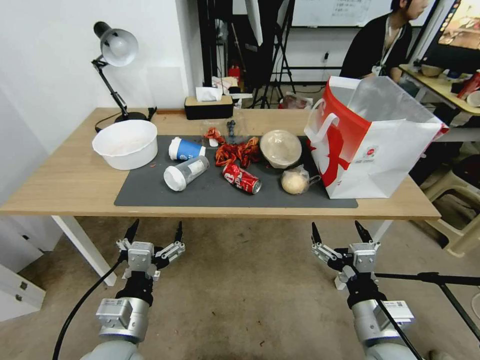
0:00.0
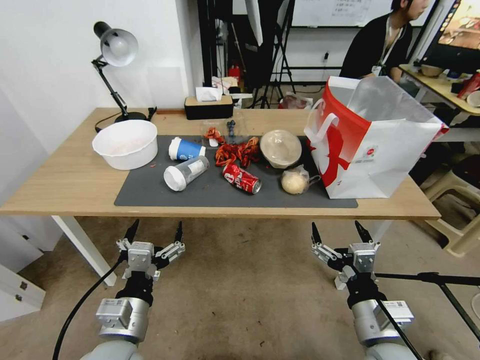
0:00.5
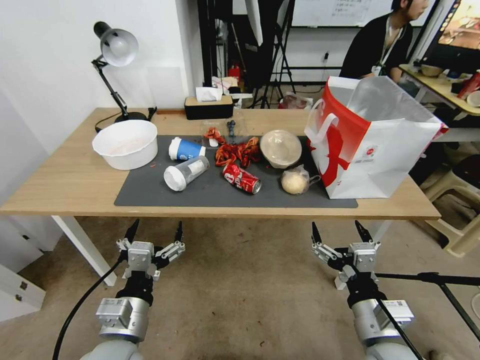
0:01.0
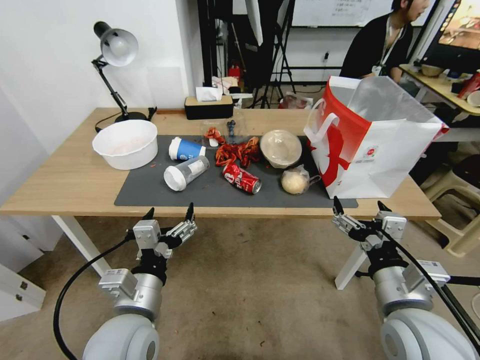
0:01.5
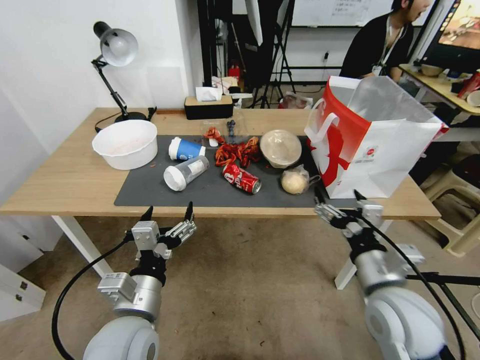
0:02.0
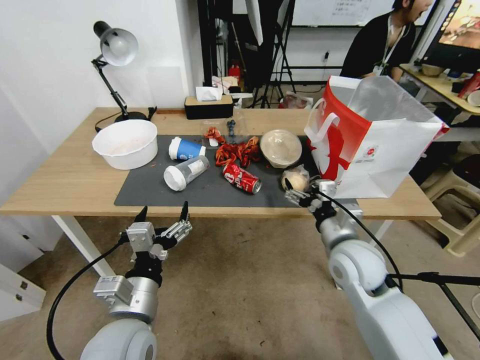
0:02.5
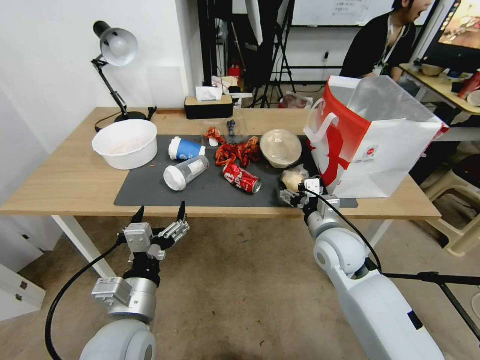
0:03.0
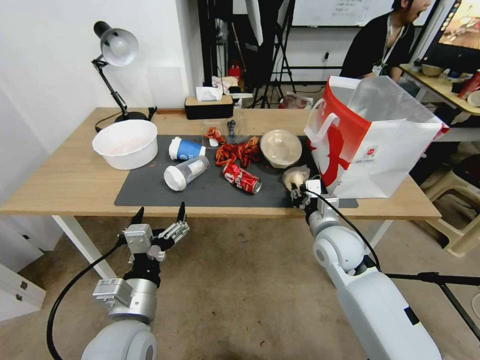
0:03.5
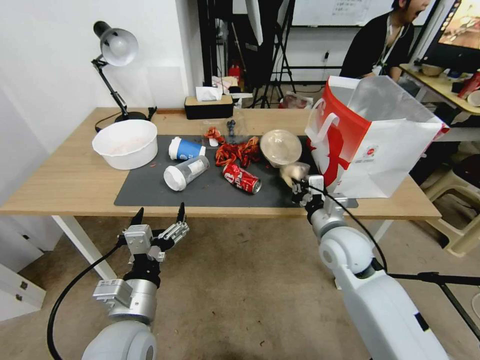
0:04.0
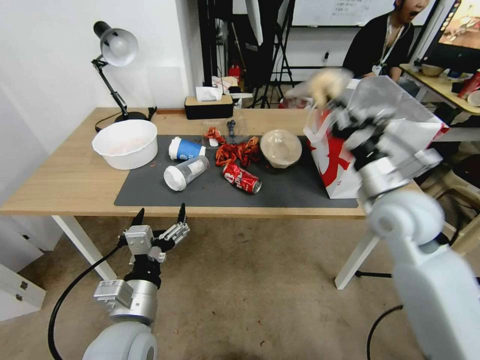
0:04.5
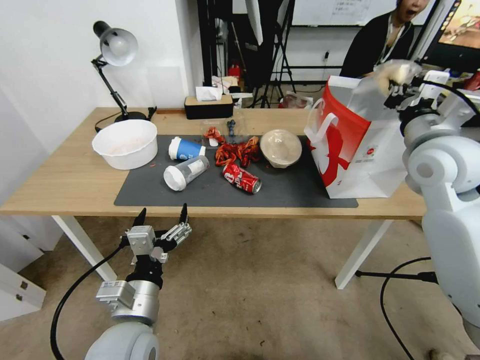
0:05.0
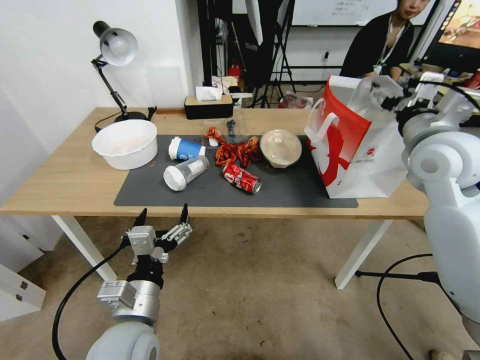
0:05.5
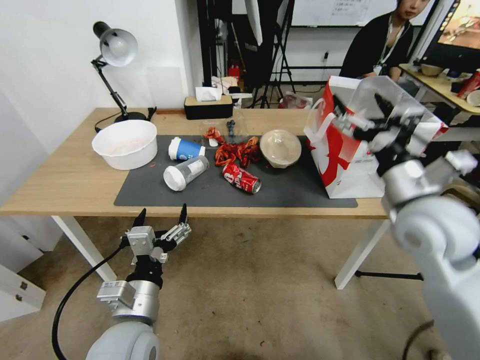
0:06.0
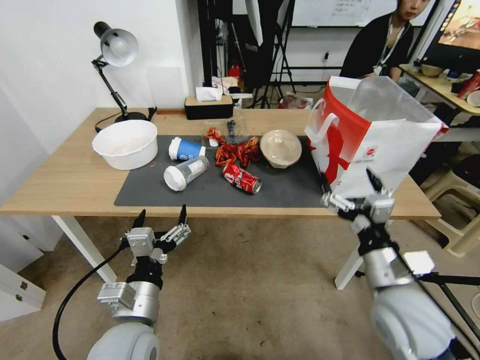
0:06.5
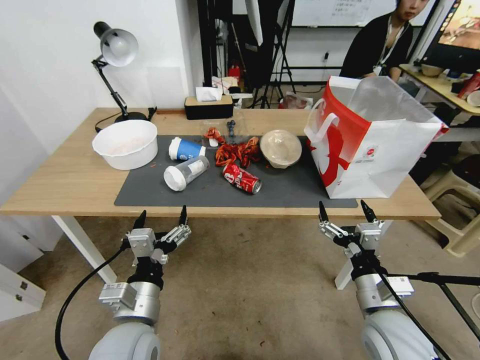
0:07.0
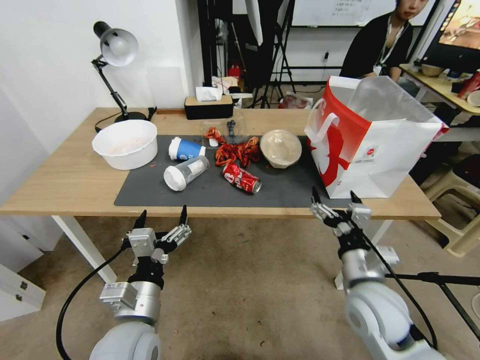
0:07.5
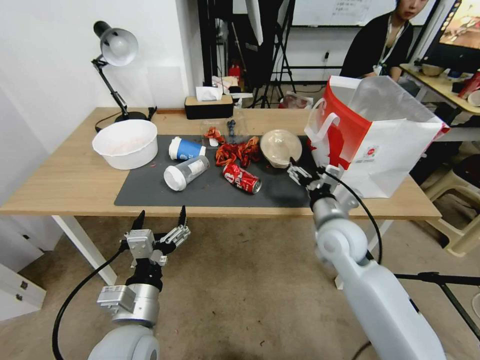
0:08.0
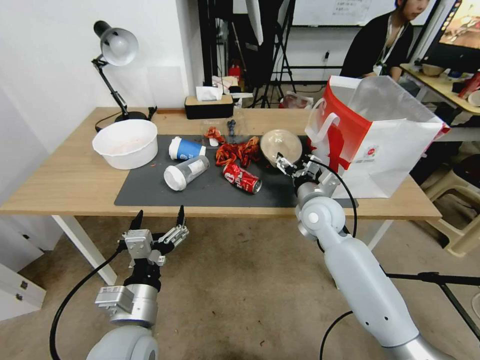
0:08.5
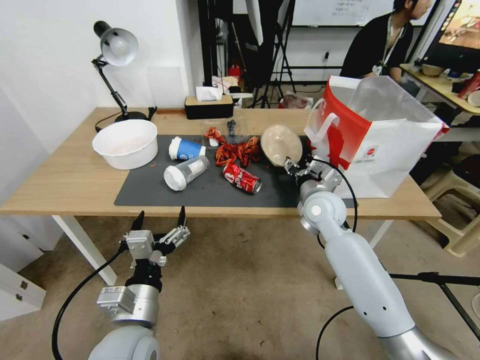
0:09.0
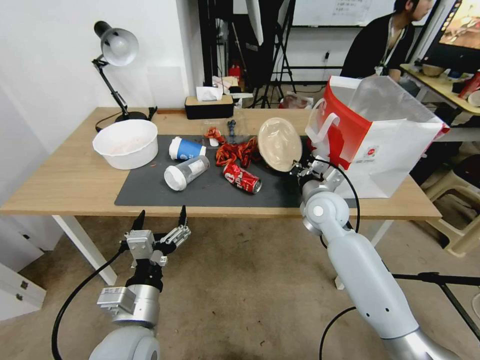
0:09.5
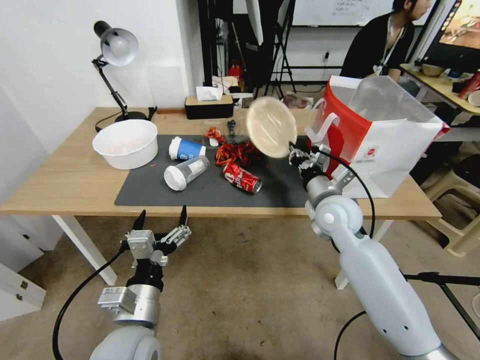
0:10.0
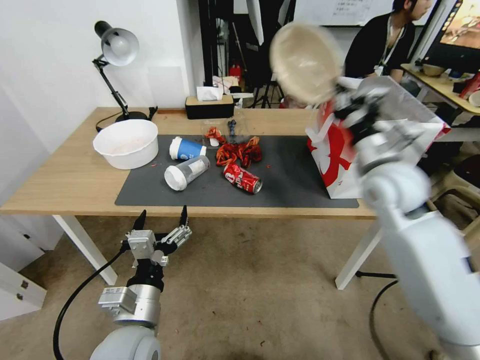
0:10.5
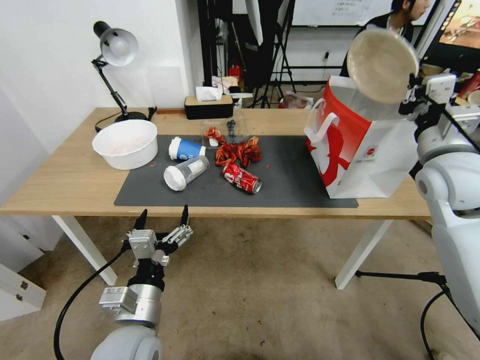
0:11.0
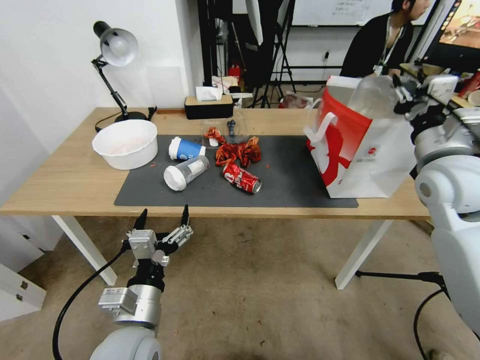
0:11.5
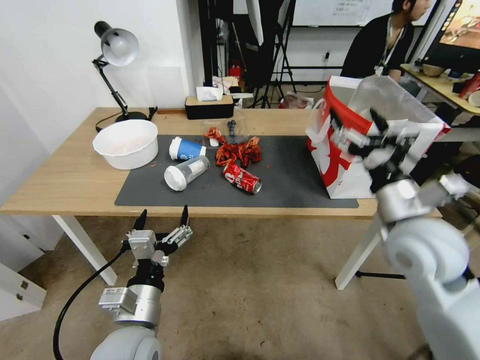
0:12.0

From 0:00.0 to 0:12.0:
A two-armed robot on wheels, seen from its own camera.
From 0:02.0 to 0:04.0: The right gripper is displaced forward by roughly 10 cm, and closes its fingers.
From 0:04.0 to 0:06.0: The right gripper goes approximately 15 cm upward and to the right, and opens its fingers.
From 0:06.0 to 0:08.0: The right gripper moves downward and to the left, roughly 15 cm.
From 0:08.0 to 0:10.0: The right gripper is displaced forward by roughly 5 cm, and closes up.
From 0:10.0 to 0:12.0: The right gripper moves backward, upward and to the right, approximately 15 cm, and opens.

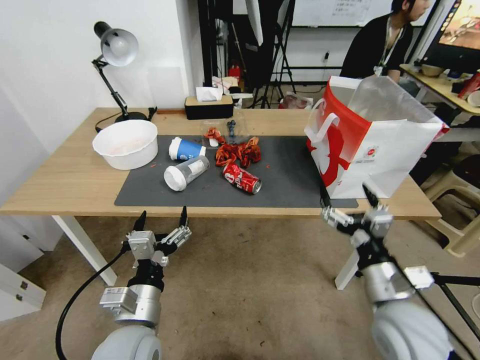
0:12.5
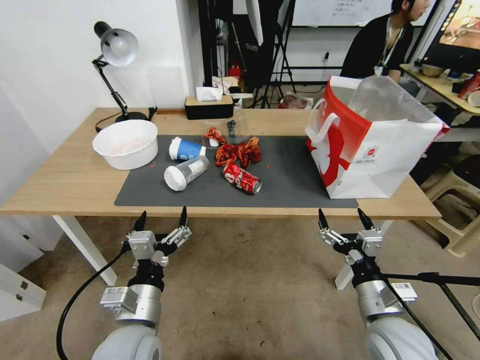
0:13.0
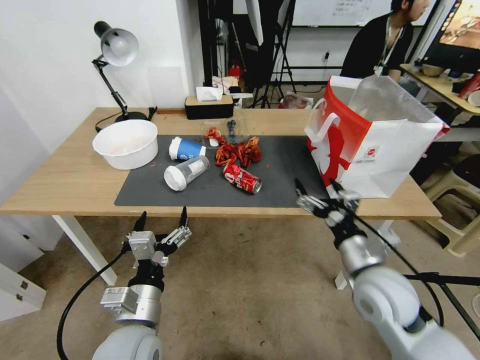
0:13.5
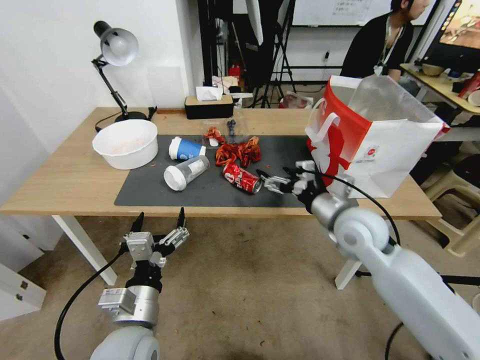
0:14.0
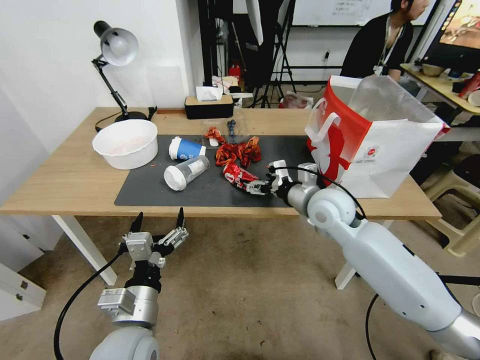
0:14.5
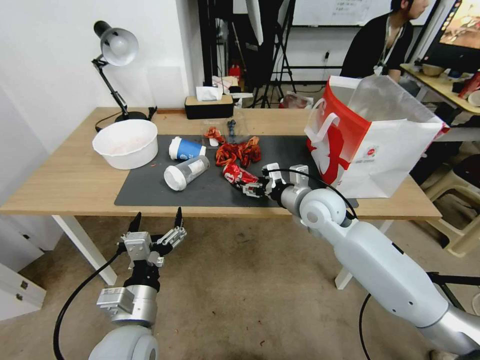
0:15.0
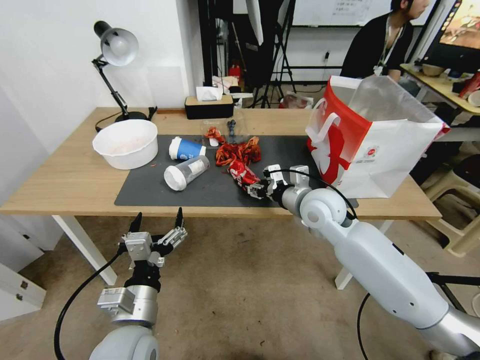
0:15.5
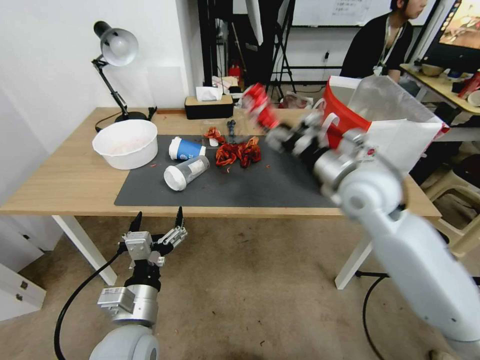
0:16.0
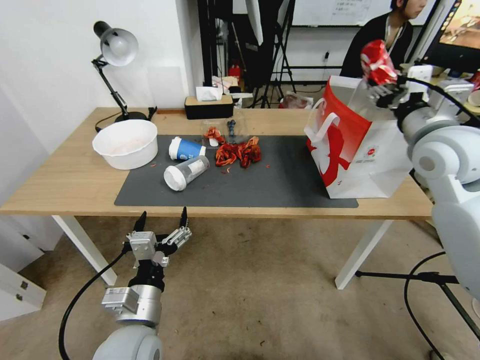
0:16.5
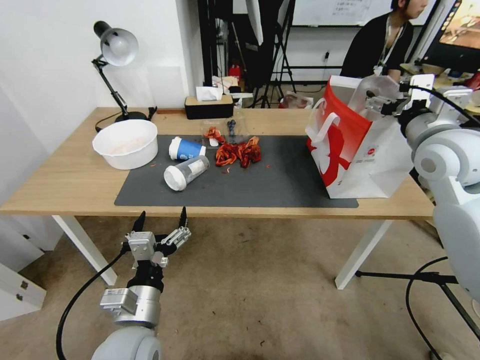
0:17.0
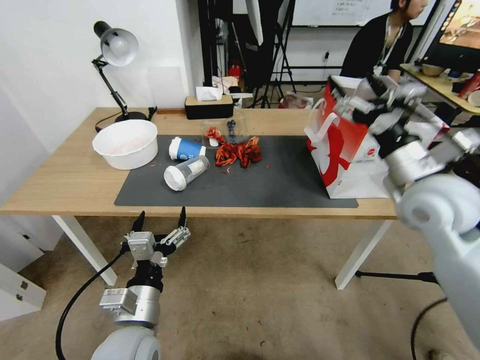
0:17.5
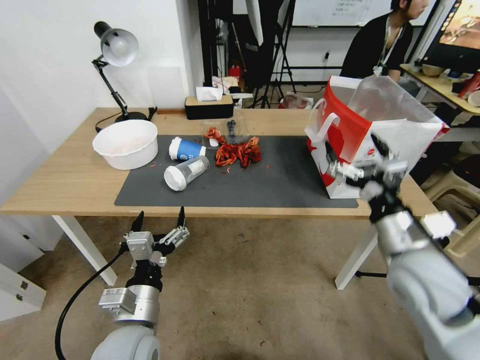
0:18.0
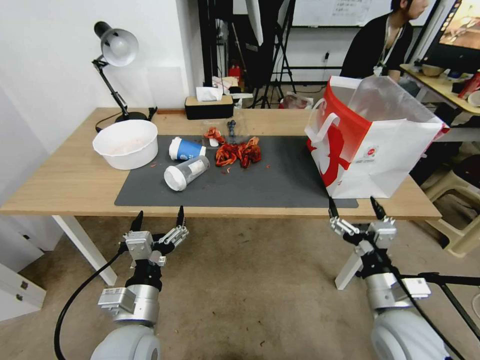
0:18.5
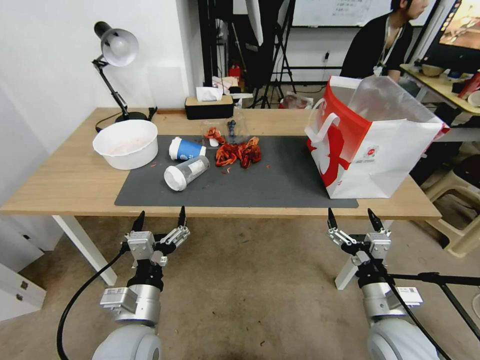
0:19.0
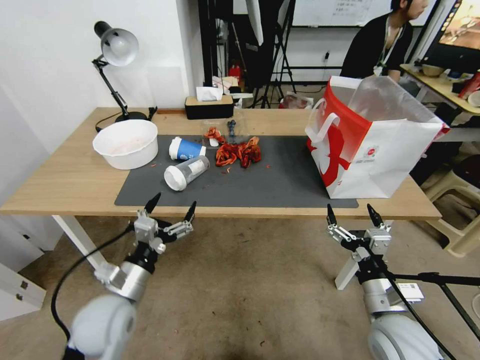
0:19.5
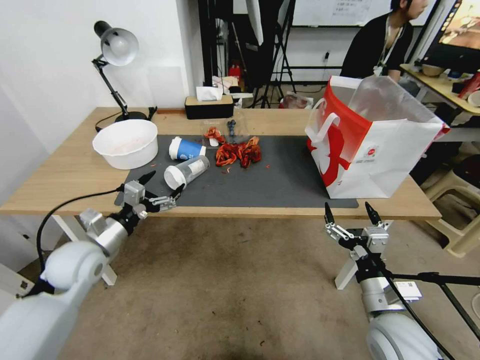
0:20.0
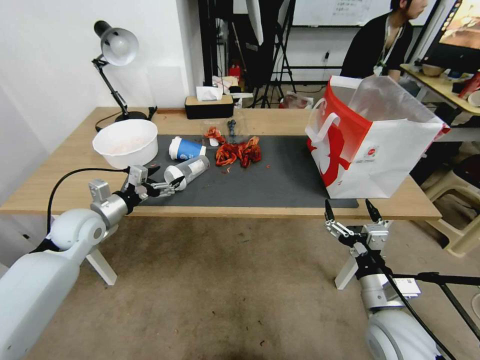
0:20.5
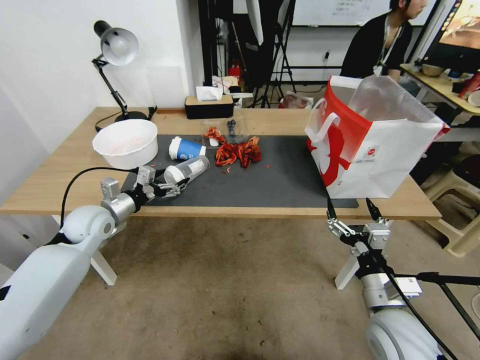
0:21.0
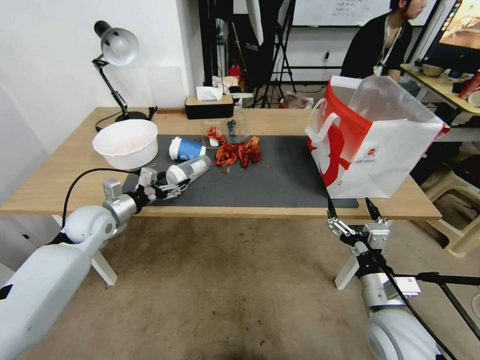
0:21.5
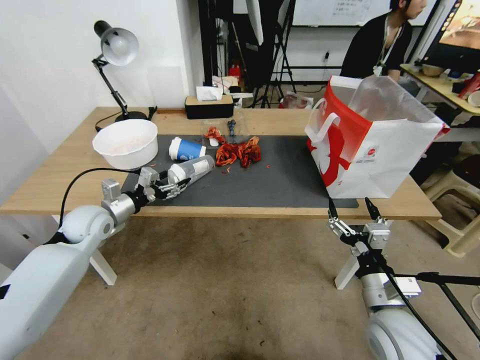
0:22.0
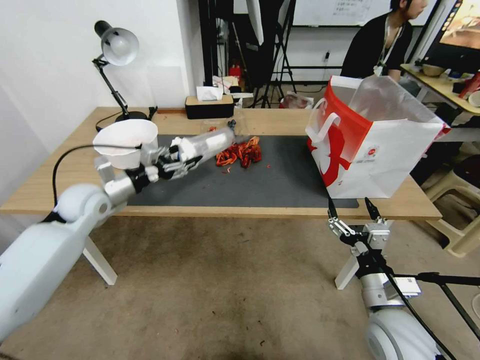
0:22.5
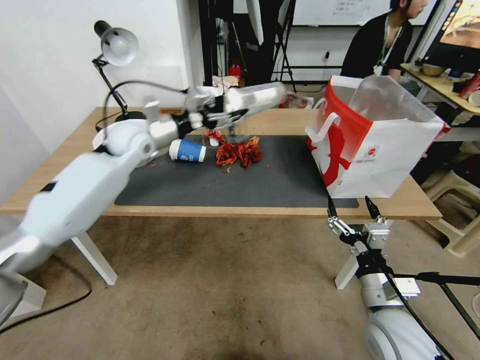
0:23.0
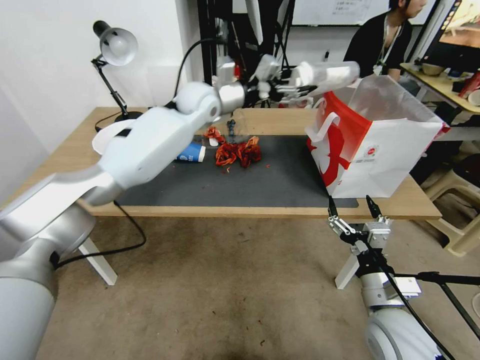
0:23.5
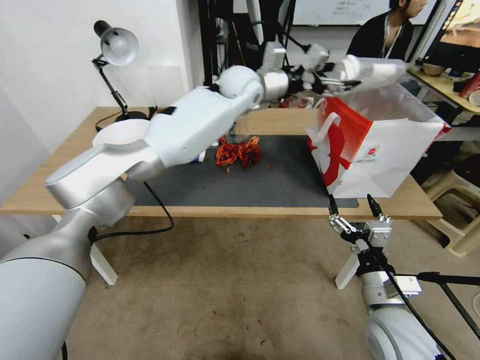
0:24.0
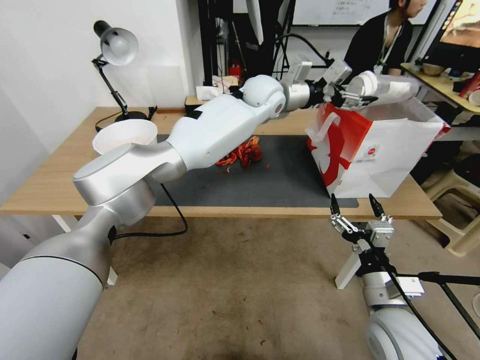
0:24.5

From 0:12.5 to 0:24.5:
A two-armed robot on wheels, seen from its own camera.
From 0:12.5 to 0:14.5: The right gripper travels forward by some 20 cm.
From 0:14.5 to 0:16.5: The right gripper moves upward and to the right, roughly 20 cm, and closes its fingers.
From 0:16.5 to 0:18.5: The right gripper is displaced downward and backward by roughly 35 cm, and opens up.
From 0:18.5 to 0:20.5: The left gripper moves forward and to the left, some 30 cm.
From 0:20.5 to 0:22.5: The left gripper changes place by some 5 cm, and closes up.
From 0:22.5 to 0:24.5: The left gripper goes about 50 cm to the right, forward and upward.

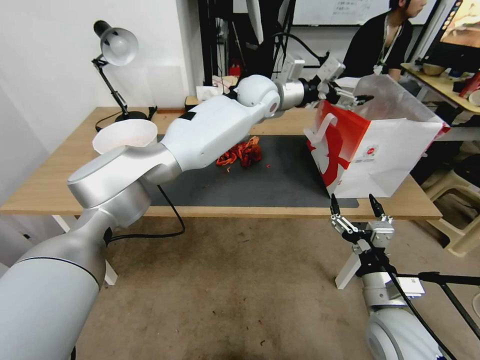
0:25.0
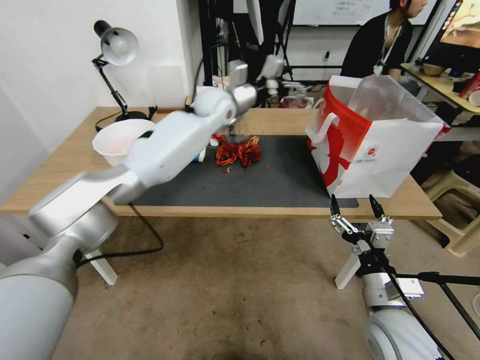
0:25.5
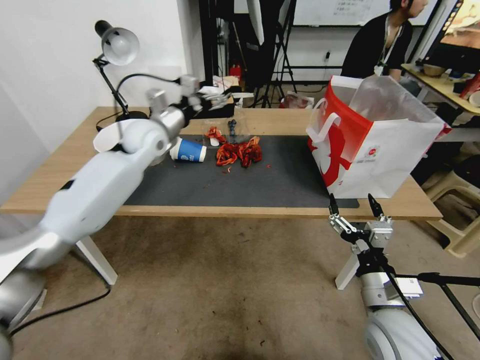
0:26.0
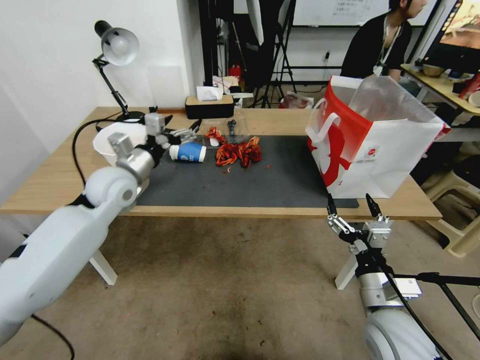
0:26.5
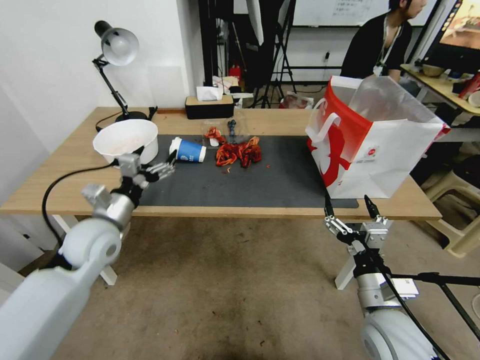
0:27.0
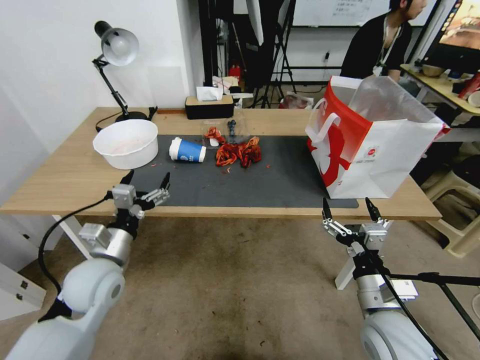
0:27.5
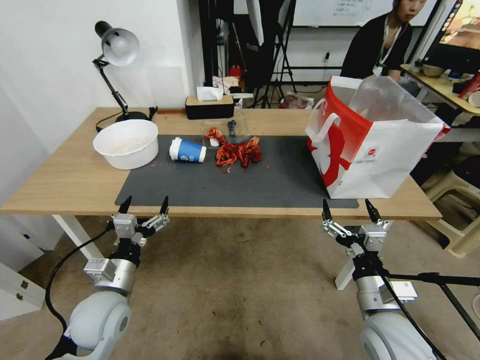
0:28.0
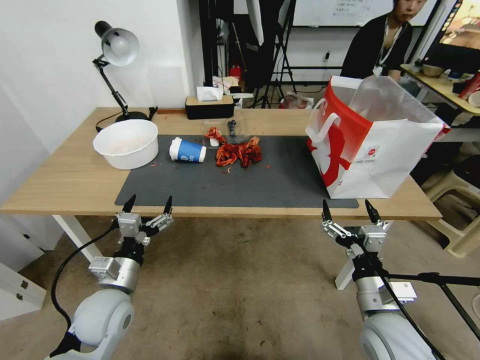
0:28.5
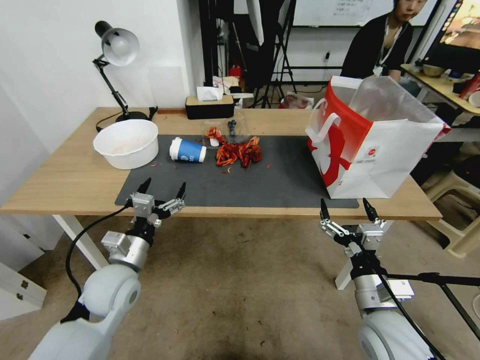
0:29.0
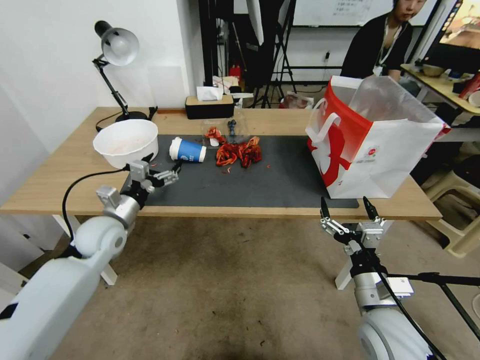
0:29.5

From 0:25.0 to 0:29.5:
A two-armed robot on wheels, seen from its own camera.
From 0:25.0 to 0:27.0: The left gripper moves to the left, backward and downward, some 50 cm.
From 0:27.0 to 0:29.5: The left gripper moves some 10 cm backward and comes back.
